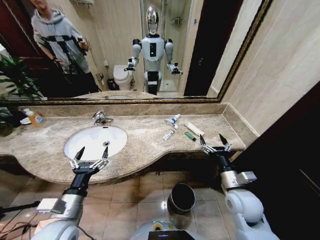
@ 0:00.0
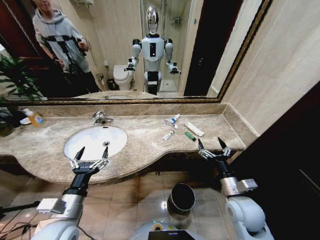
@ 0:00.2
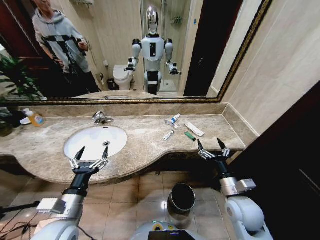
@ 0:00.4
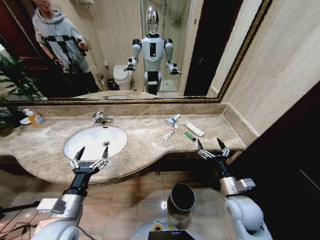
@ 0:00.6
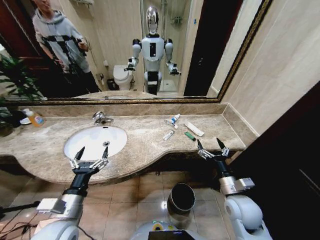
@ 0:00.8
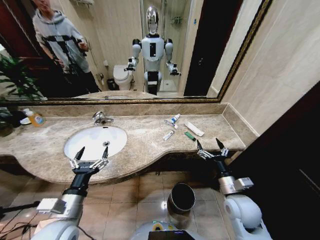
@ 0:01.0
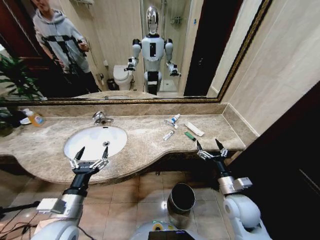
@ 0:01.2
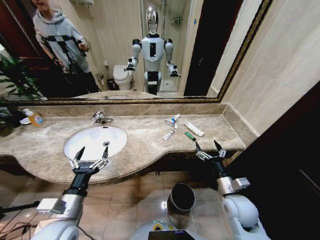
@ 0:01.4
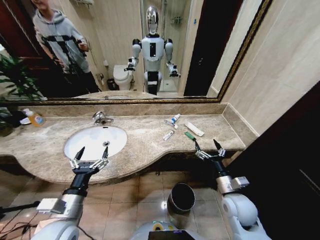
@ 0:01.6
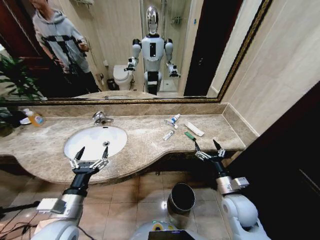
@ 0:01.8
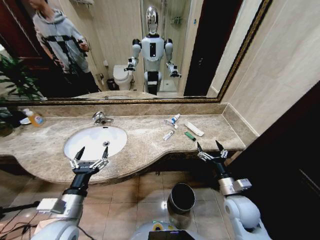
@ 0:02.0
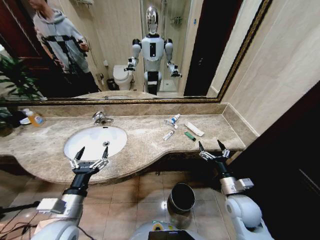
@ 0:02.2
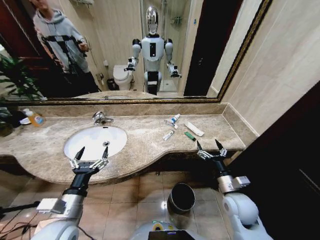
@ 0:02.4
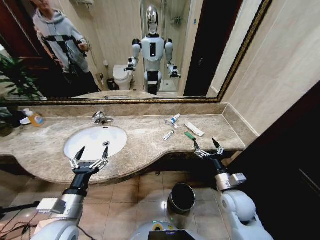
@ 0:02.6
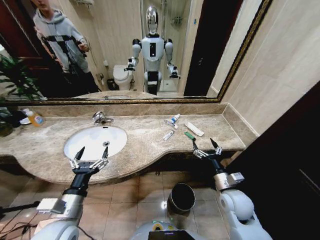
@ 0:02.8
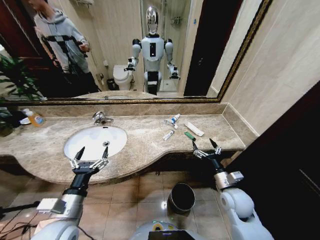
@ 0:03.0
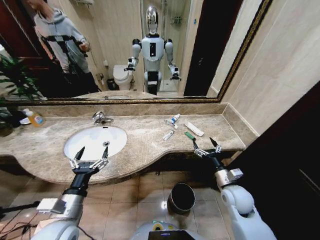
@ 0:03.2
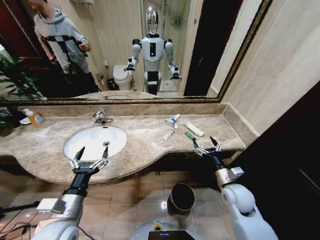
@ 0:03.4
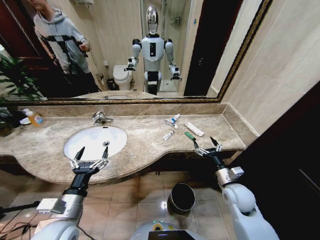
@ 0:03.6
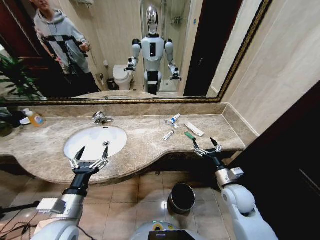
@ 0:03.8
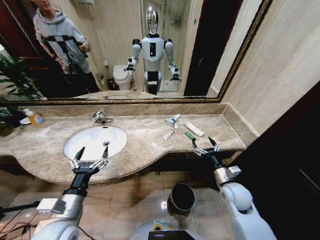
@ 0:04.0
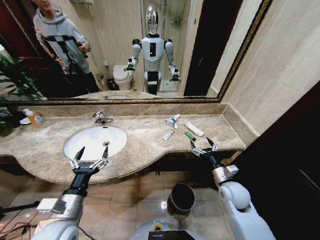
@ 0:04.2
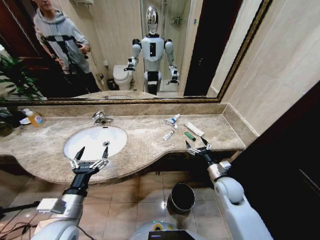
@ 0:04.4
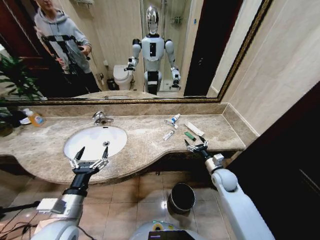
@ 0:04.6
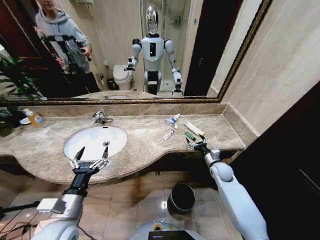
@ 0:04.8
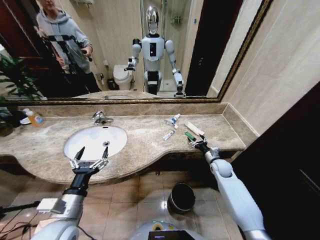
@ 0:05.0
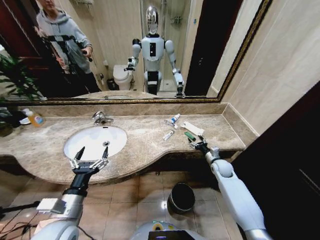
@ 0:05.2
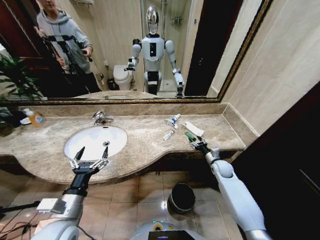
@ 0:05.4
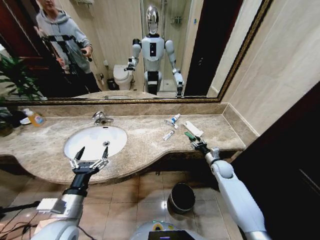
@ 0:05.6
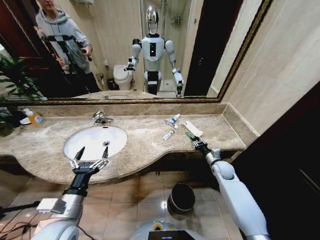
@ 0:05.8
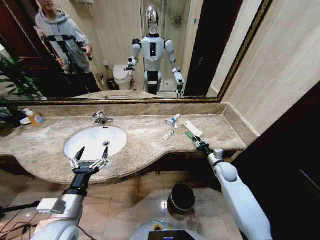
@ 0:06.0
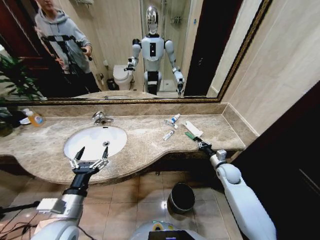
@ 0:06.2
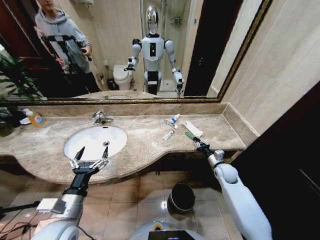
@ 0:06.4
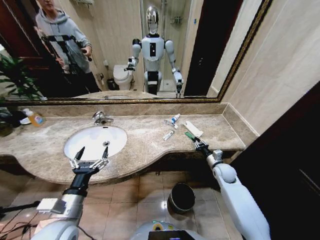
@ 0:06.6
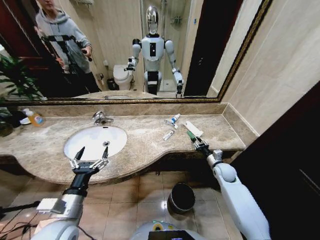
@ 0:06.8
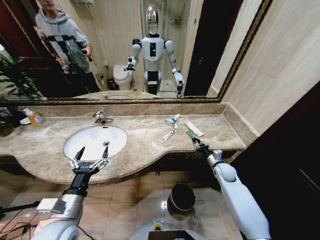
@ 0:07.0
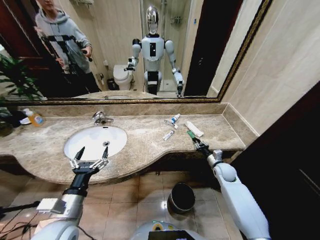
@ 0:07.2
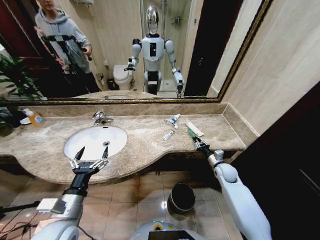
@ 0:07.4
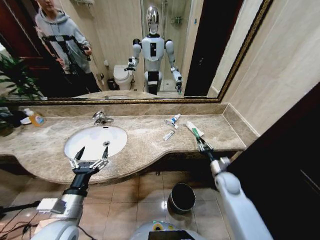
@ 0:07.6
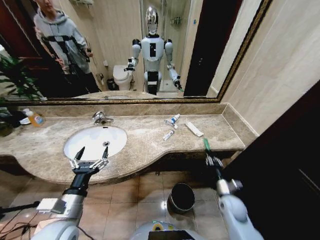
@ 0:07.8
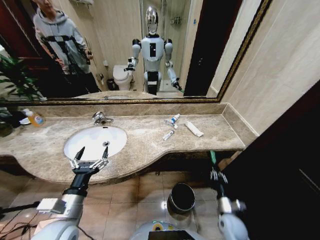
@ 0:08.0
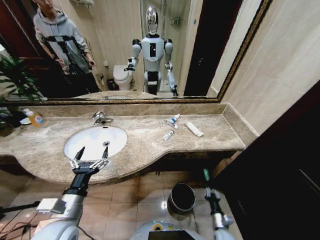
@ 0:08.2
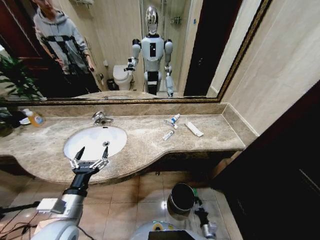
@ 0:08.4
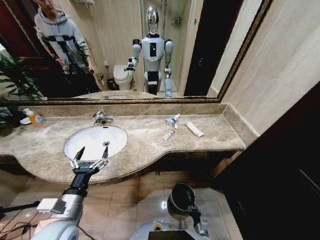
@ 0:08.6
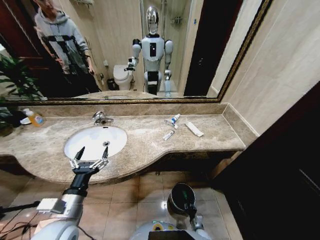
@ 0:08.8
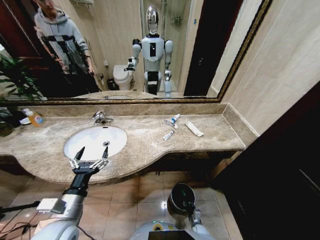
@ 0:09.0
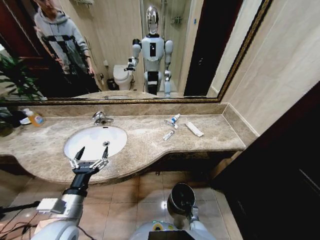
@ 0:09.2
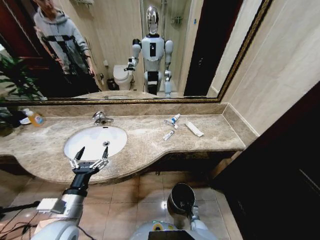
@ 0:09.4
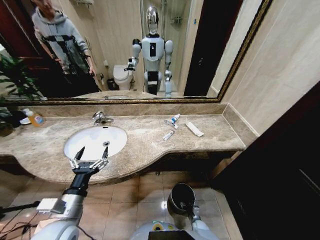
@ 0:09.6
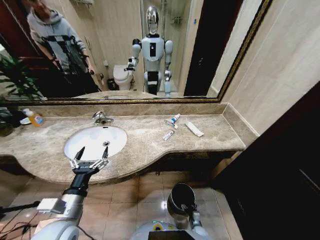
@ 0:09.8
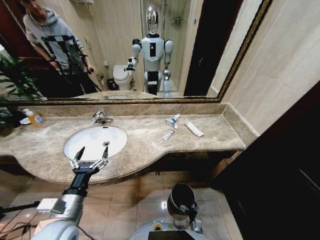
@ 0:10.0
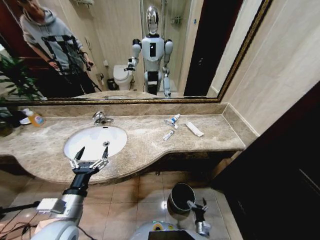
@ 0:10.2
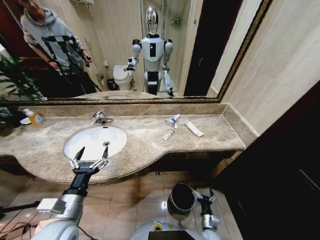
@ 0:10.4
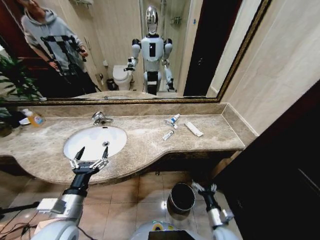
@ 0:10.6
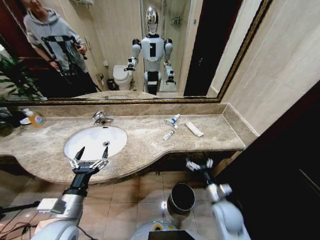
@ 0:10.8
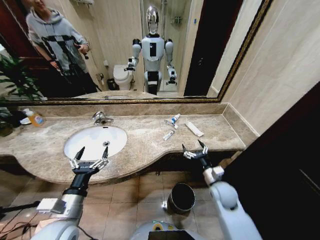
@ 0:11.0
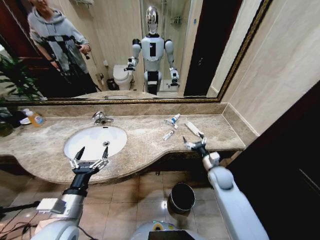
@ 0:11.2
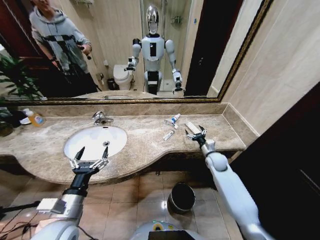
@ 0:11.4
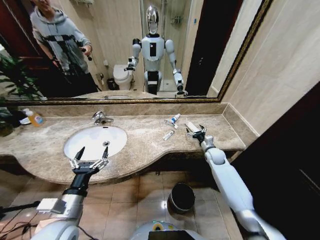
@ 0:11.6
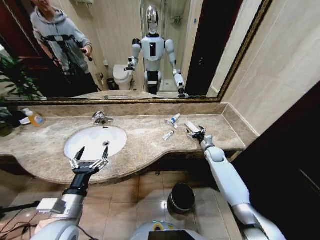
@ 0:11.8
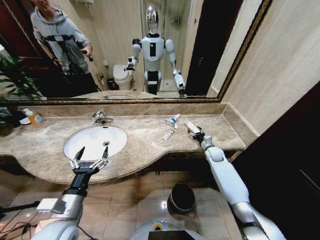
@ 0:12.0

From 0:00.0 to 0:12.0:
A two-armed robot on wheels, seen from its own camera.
Task of the whole recording: Pick up the trash from the sink and place it in the trash bin.
From 0:01.6 to 0:03.0: The grippers move only a little.
From 0:03.0 to 0:04.4: The right gripper is displaced forward by some 5 cm.
From 0:04.4 to 0:06.0: The right gripper heads forward and to the right, covering roughly 10 cm, and closes up.
From 0:06.0 to 0:07.6: There are only small adjustments of the grippers.
From 0:07.6 to 0:09.0: The right gripper shifts approximately 40 cm downward and backward.
From 0:09.0 to 0:10.4: The right gripper travels upward by approximately 15 cm, and opens up.
From 0:10.4 to 0:12.0: The right gripper goes roughly 40 cm forward and upward.

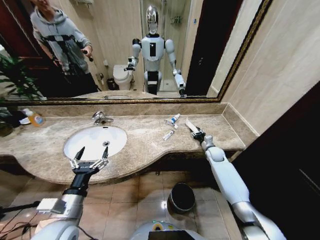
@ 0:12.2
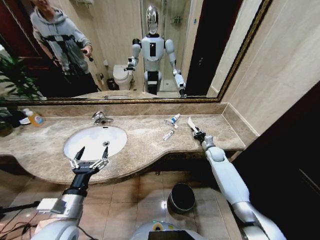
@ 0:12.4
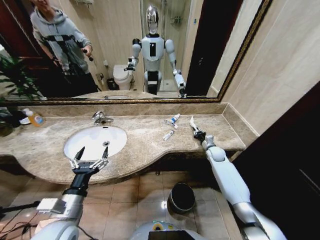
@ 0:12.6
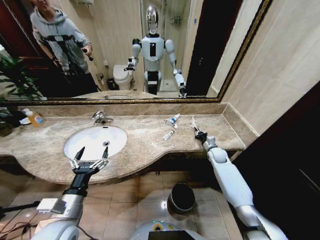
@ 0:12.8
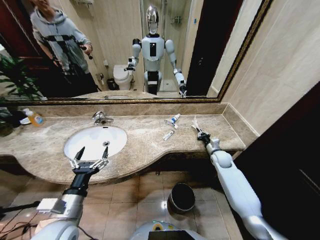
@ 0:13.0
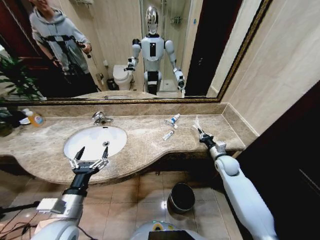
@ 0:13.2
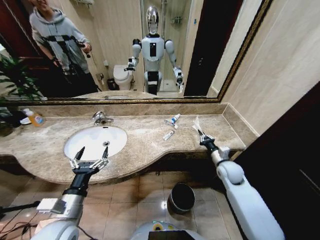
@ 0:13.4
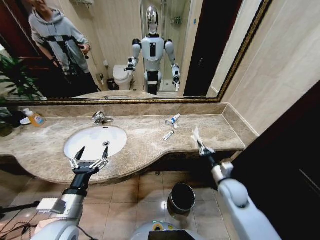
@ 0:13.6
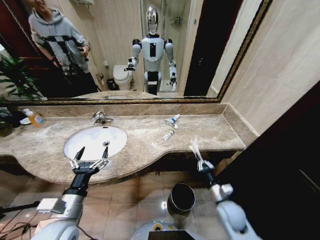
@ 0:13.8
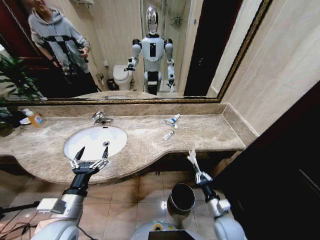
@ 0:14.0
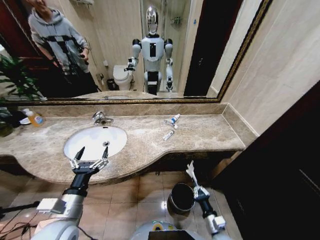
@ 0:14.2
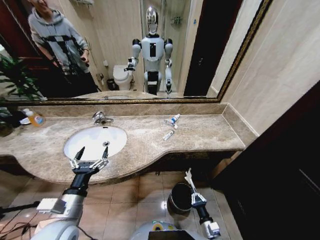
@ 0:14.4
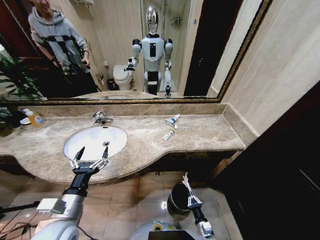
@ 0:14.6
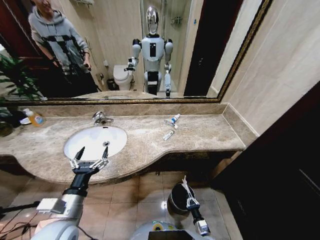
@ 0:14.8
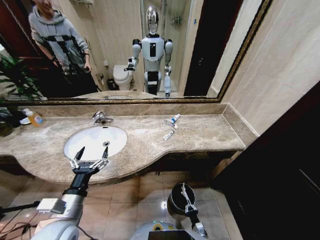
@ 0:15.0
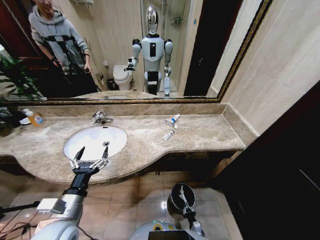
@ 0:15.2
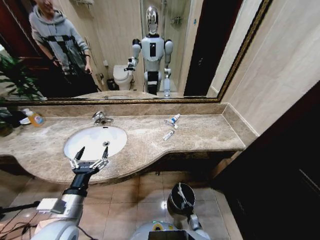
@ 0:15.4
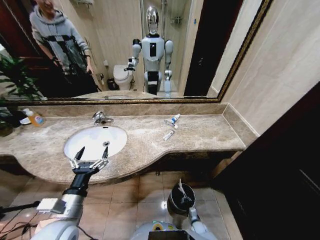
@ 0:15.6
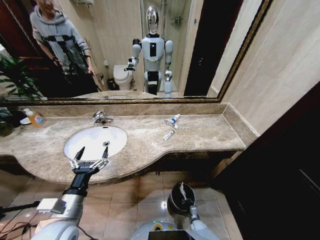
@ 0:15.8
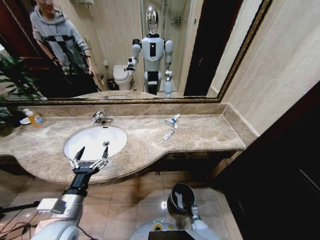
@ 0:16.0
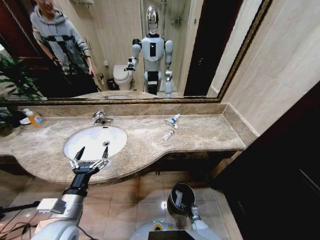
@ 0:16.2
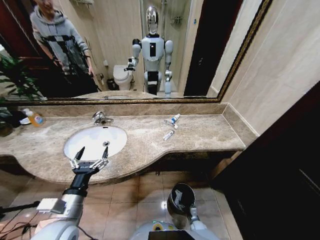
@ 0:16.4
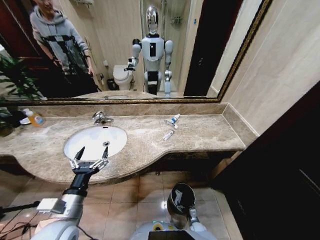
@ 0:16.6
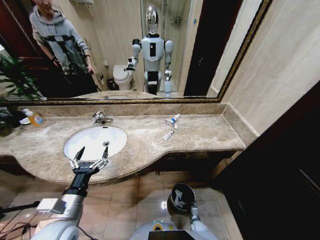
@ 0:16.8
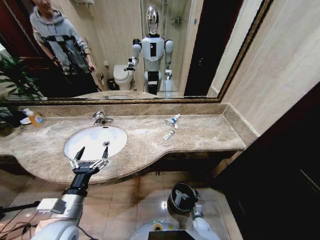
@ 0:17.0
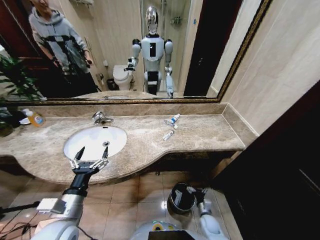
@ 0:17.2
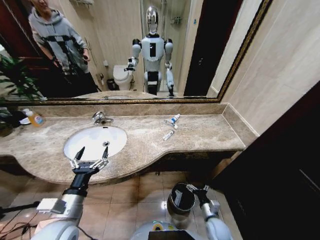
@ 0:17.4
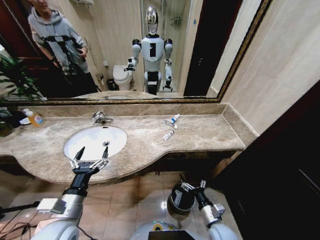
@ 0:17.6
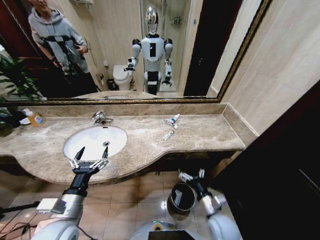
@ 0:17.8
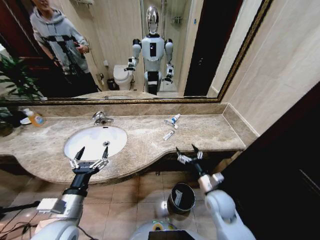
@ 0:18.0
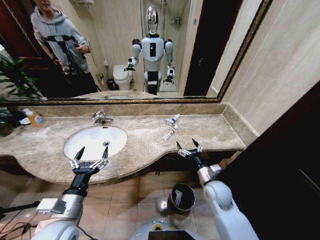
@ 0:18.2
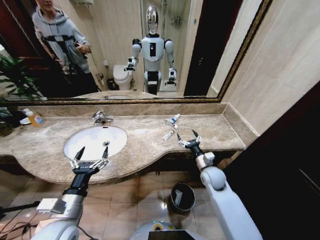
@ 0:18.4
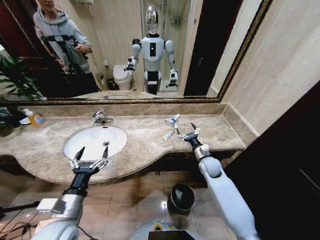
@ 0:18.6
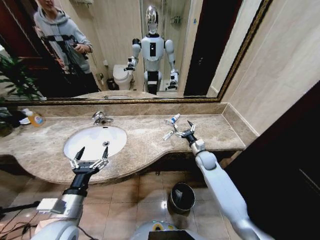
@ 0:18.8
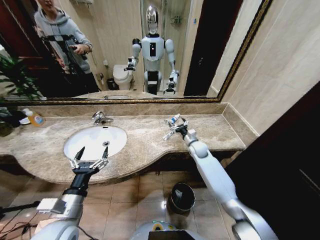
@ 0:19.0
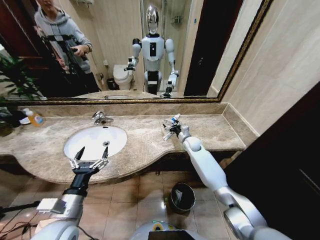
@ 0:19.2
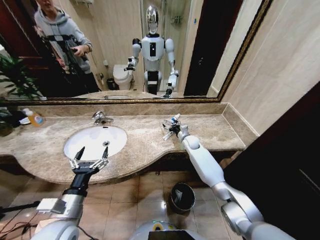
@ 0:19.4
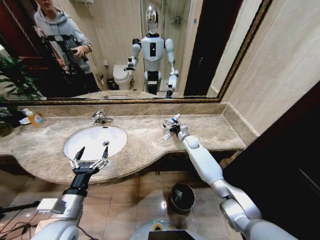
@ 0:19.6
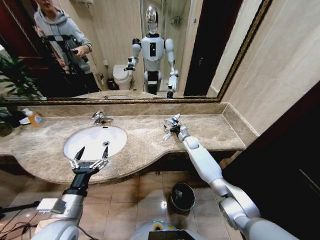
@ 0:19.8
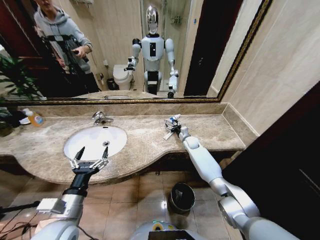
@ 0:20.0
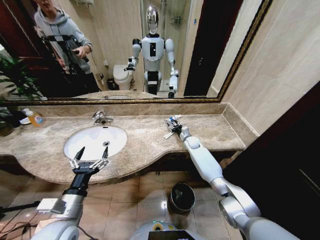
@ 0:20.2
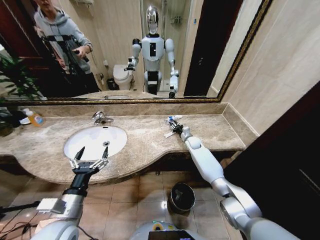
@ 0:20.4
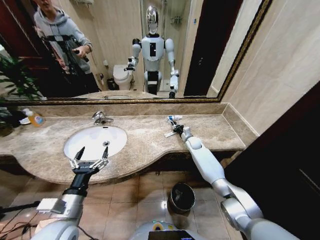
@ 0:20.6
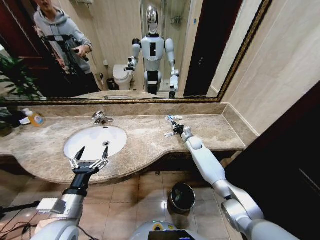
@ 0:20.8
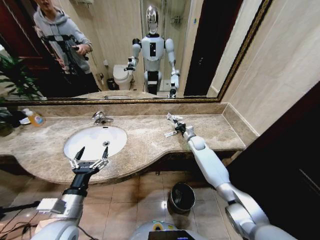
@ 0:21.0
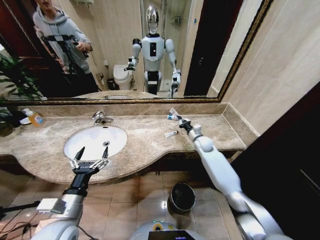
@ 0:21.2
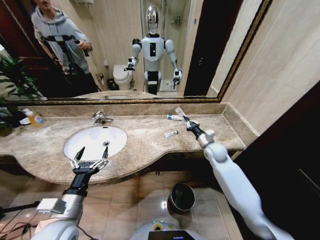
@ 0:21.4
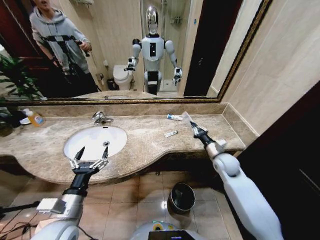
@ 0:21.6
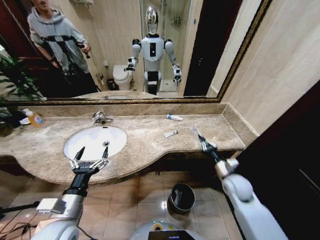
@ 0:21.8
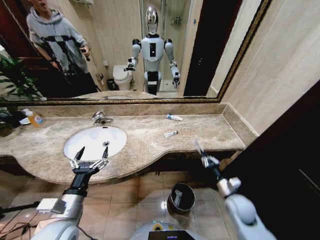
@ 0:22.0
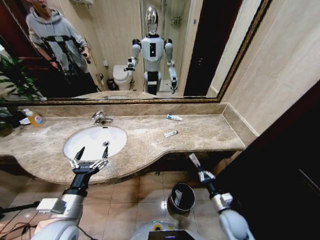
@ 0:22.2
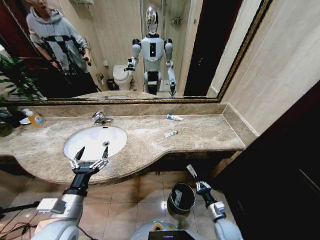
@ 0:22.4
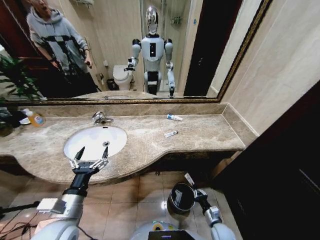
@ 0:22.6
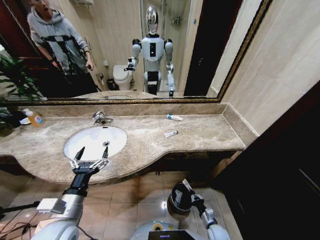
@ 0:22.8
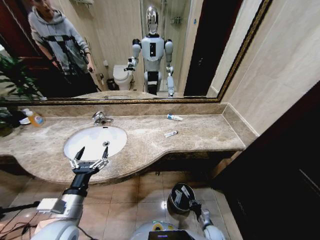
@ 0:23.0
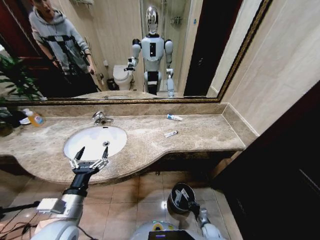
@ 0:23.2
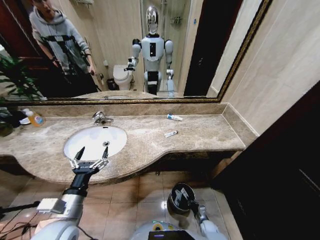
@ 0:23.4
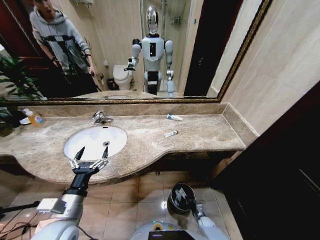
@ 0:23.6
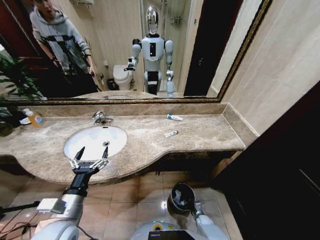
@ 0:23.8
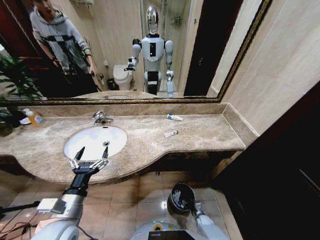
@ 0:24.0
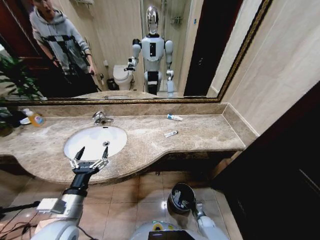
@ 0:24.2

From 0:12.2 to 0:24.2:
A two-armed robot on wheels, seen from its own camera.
Task of the whole recording: Pick up the trash from the sink and place it in the trash bin.
From 0:12.2 to 0:13.8: The right gripper moves backward, roughly 25 cm, and closes up.
From 0:13.8 to 0:15.2: The right gripper is displaced downward by roughly 30 cm.
From 0:15.2 to 0:16.6: The right gripper shifts approximately 5 cm forward, and opens up.
From 0:16.6 to 0:18.2: The right gripper heads upward, covering roughly 40 cm.
From 0:18.2 to 0:19.8: The right gripper is displaced forward by some 30 cm.
From 0:19.8 to 0:21.2: The right gripper moves backward and upward, roughly 10 cm, and closes.
From 0:21.2 to 0:22.6: The right gripper moves backward and downward, about 40 cm.
From 0:22.6 to 0:24.2: The right gripper goes approximately 15 cm downward, and opens up.
